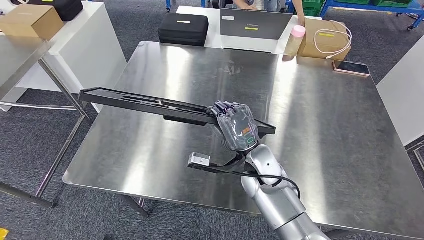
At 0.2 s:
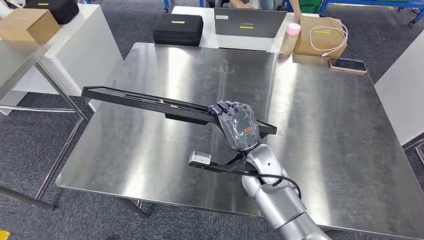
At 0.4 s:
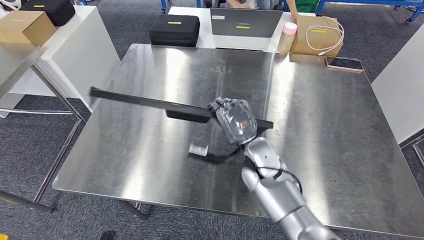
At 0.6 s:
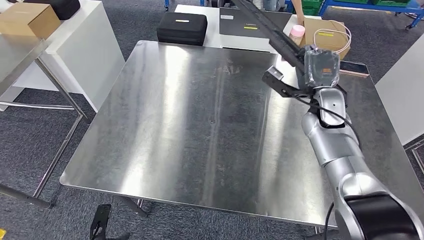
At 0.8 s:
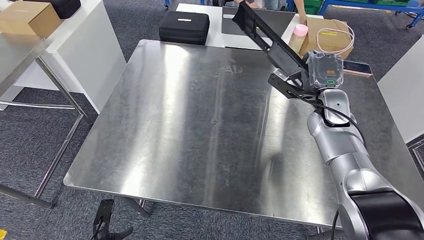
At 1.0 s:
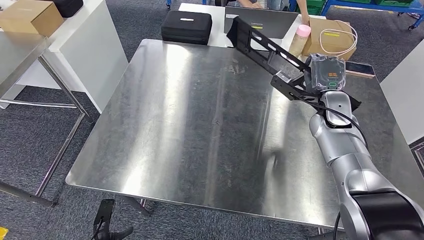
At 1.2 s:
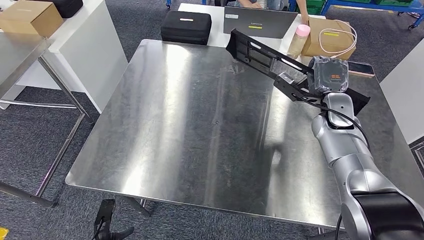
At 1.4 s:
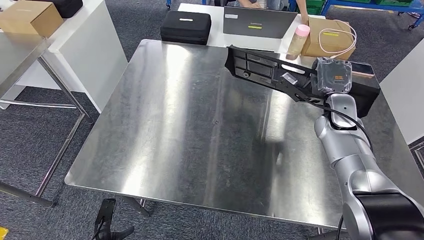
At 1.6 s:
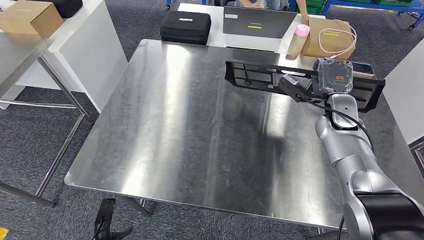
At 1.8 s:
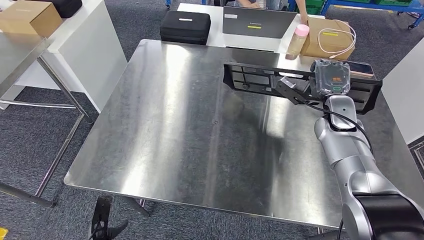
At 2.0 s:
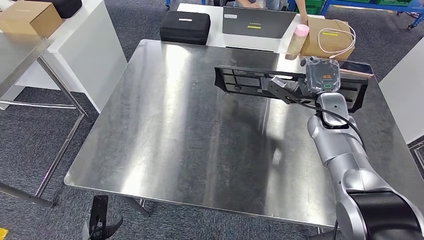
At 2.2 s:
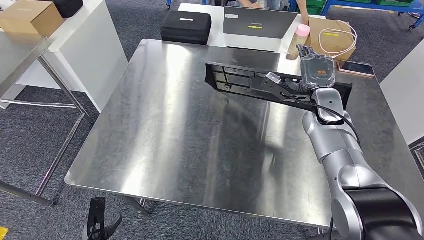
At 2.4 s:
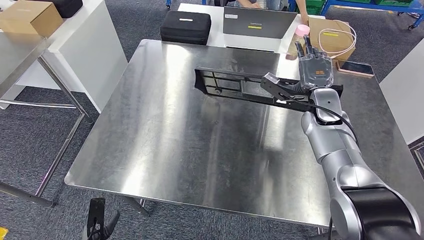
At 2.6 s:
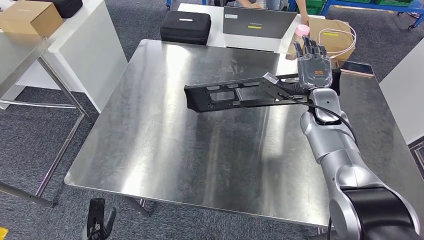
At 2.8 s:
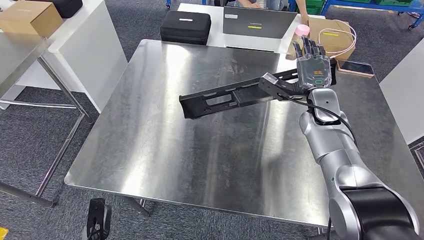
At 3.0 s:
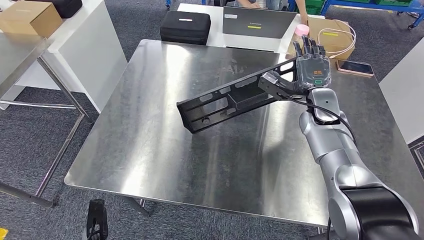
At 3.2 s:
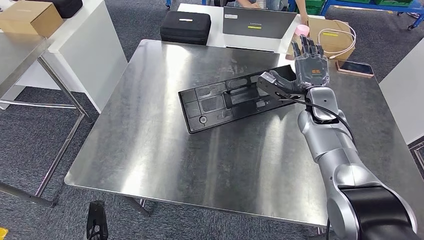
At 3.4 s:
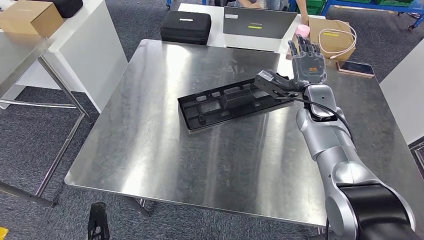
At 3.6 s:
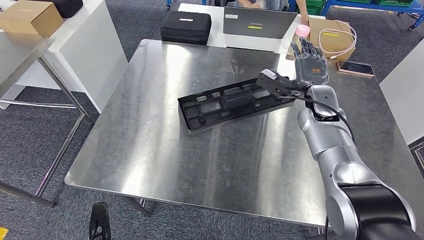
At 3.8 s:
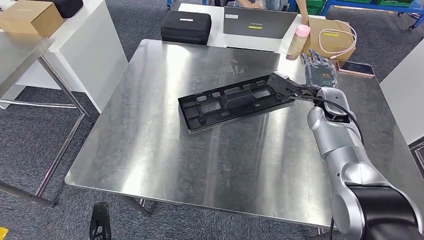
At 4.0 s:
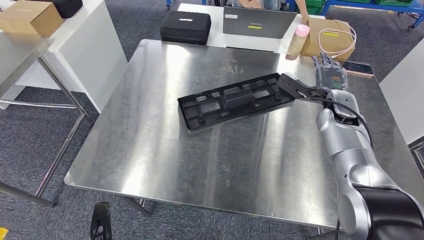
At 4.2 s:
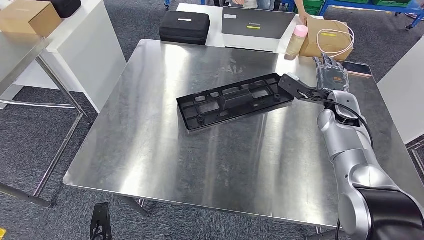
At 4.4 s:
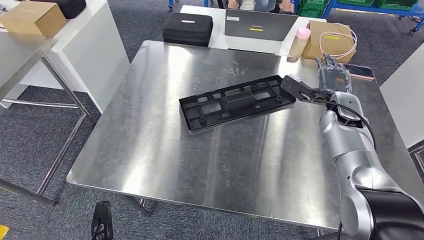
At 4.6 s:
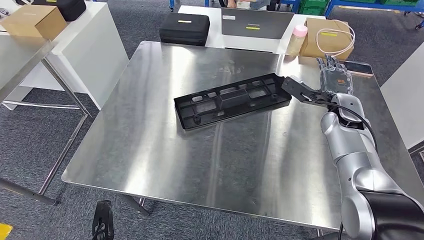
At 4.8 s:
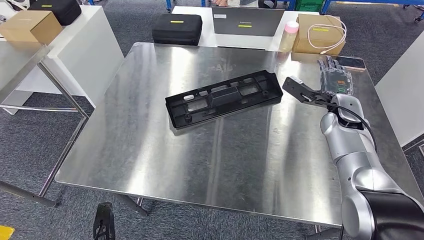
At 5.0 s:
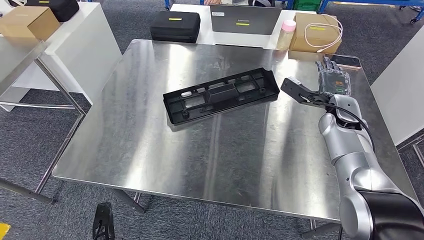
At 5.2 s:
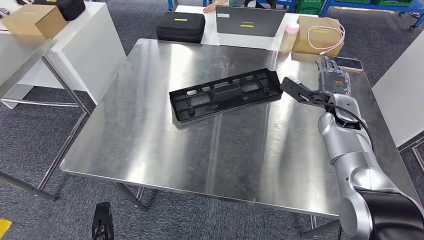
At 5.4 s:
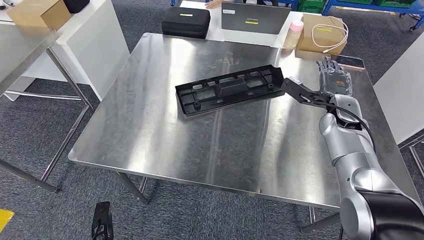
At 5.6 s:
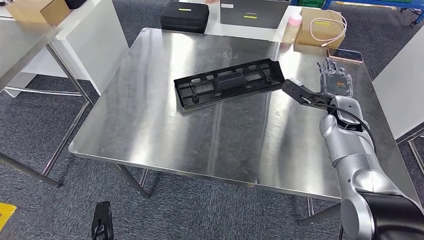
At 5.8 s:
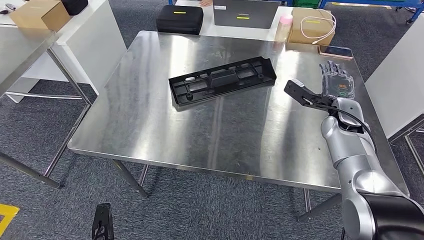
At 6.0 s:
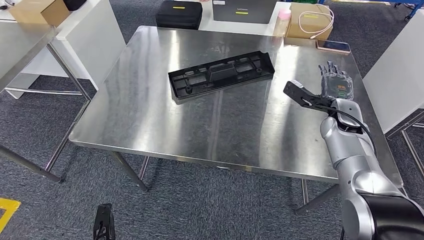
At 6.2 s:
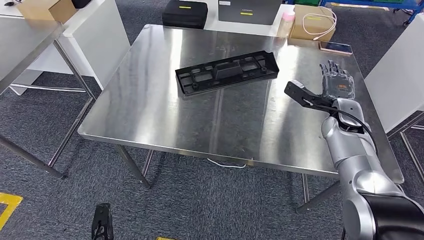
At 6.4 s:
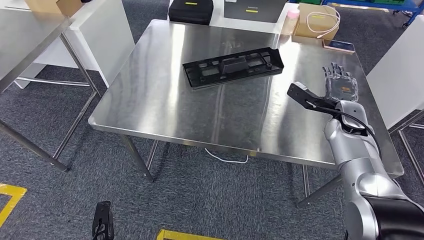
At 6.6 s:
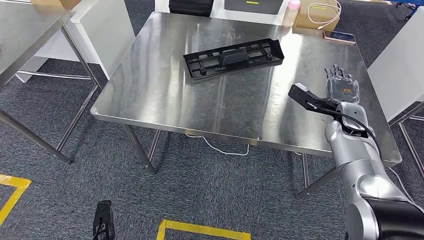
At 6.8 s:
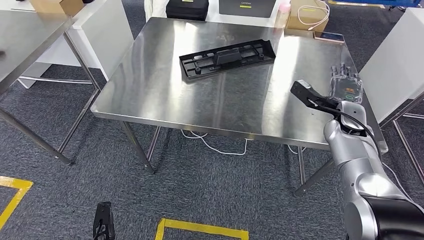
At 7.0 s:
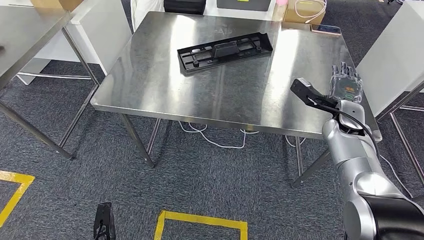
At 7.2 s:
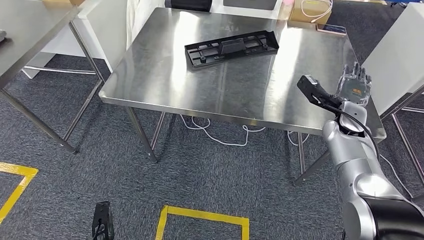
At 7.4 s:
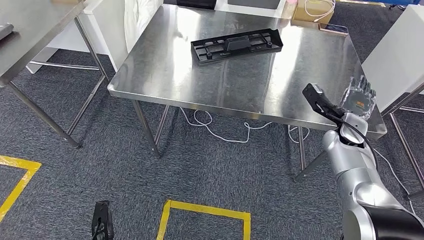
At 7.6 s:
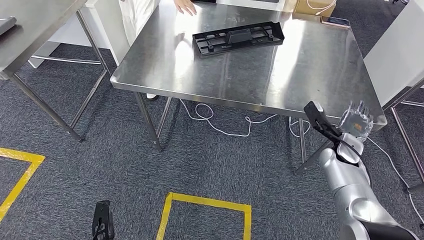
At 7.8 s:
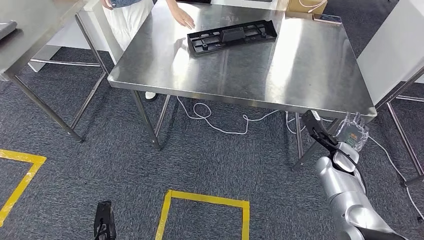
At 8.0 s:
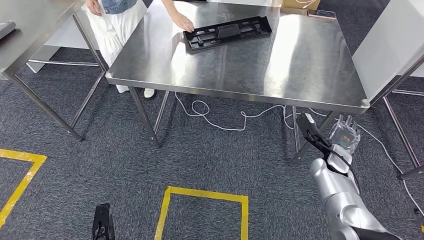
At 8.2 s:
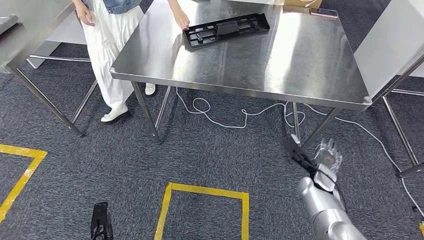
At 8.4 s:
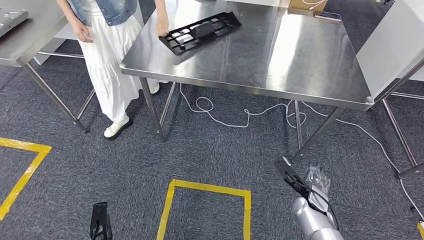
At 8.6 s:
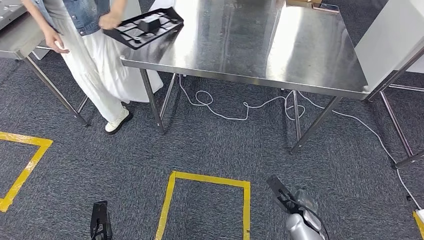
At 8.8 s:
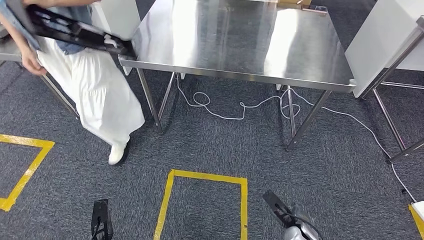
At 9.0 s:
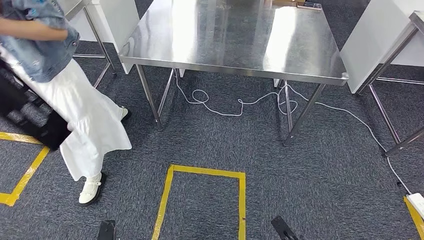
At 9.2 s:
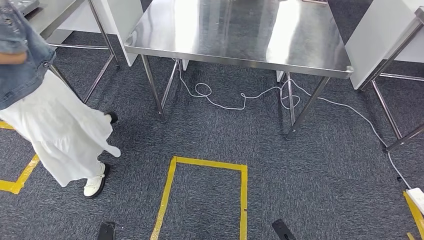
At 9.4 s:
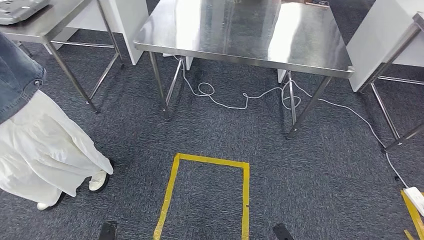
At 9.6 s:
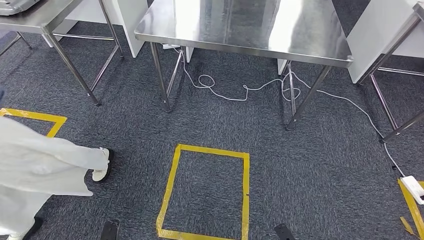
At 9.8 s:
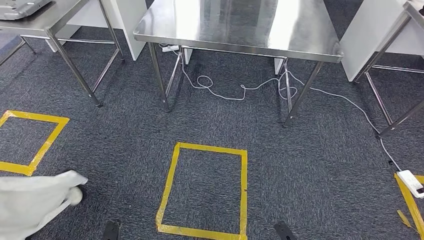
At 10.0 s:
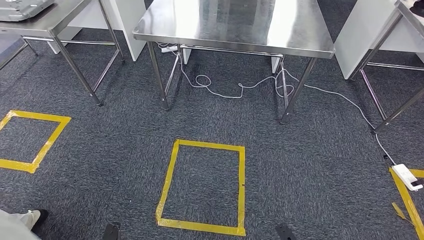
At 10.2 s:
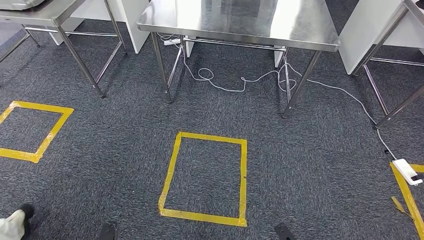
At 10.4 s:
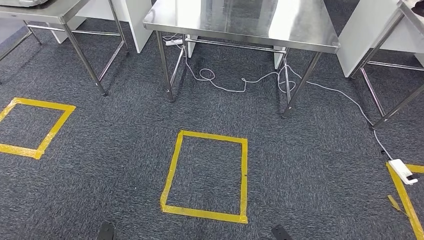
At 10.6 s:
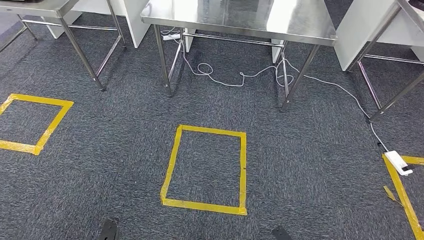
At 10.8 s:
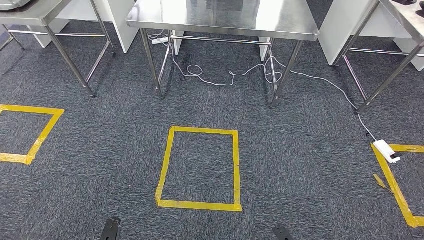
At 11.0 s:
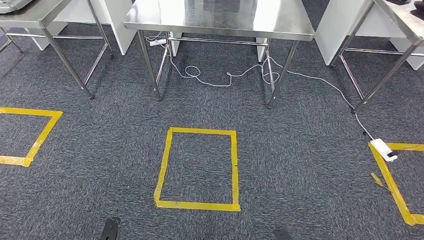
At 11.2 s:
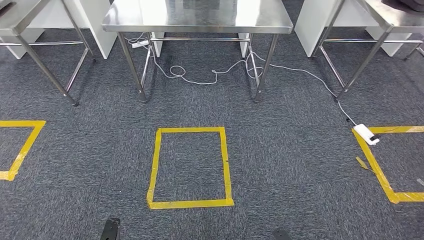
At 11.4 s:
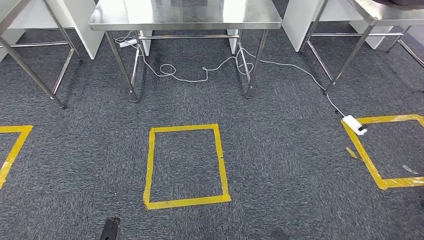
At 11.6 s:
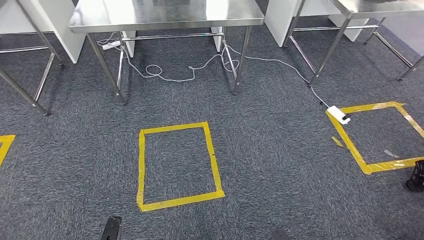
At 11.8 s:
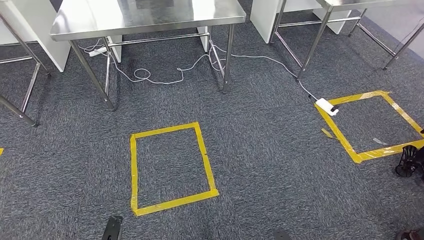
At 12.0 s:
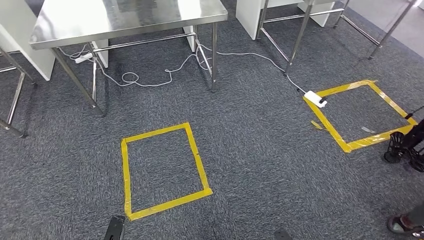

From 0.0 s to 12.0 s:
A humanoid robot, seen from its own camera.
Step, from 0.0 s to 3.0 s: Insert the large material into the corresponding hole on the workbench.
From 1.6 s to 3.0 s: The right hand shifts some 5 cm to the left.

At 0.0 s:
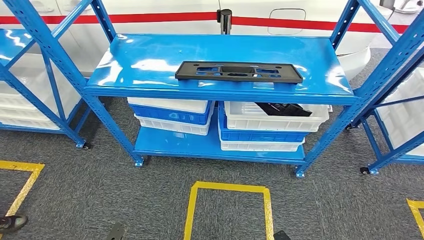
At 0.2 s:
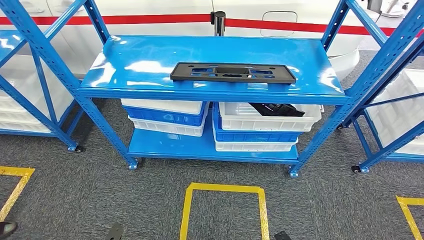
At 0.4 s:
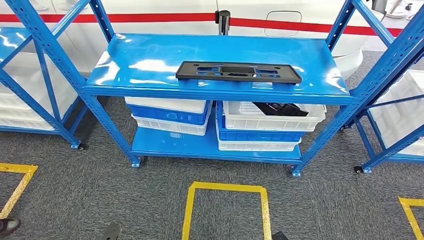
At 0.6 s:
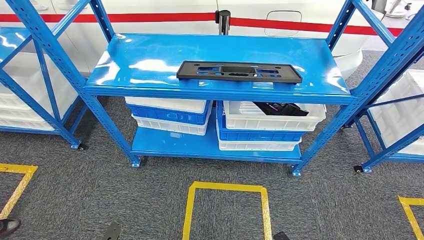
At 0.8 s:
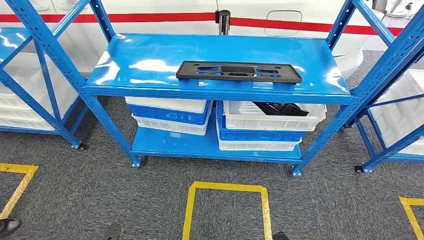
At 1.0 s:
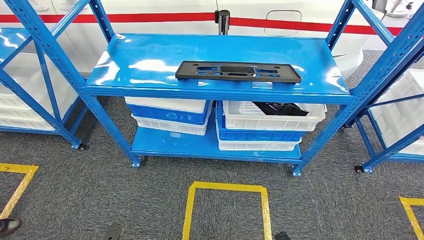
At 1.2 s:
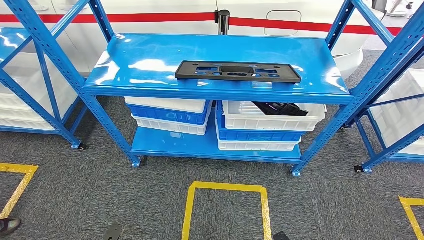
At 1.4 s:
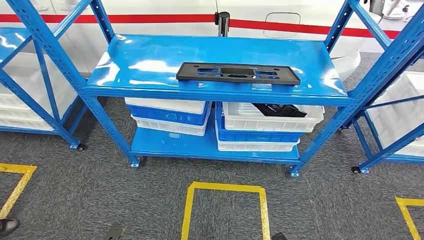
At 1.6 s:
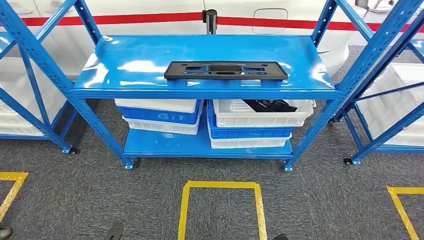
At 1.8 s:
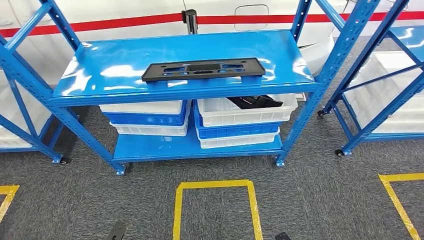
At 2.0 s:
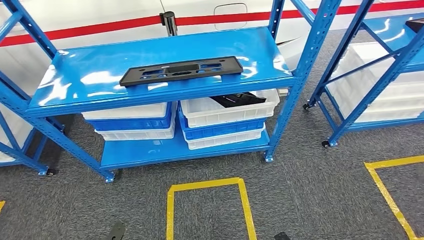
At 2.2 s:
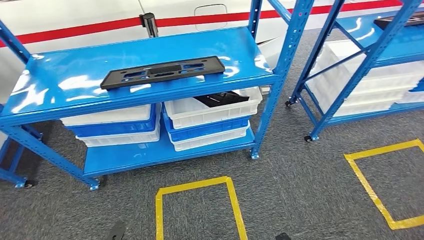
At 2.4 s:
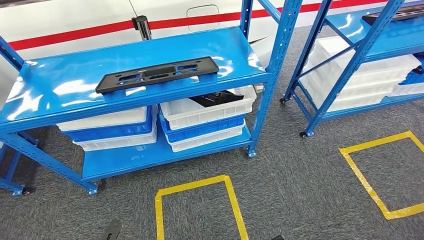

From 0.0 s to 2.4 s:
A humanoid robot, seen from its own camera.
Step, from 0.0 s to 2.4 s: Move to the initial position of the shelf.
From 0.0 s to 1.2 s: Both hands stay about where they are.
